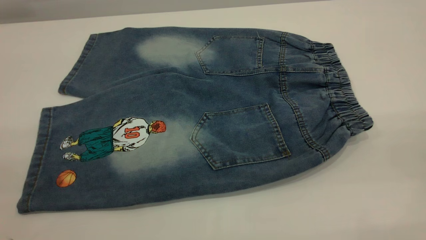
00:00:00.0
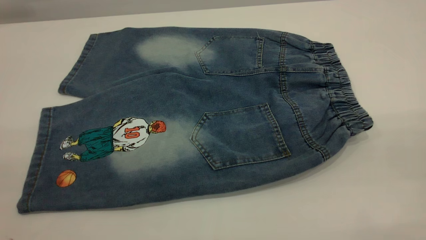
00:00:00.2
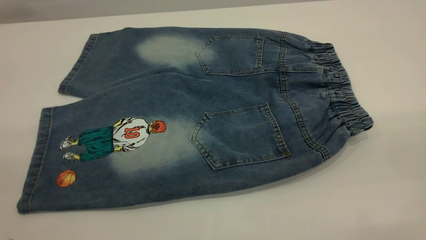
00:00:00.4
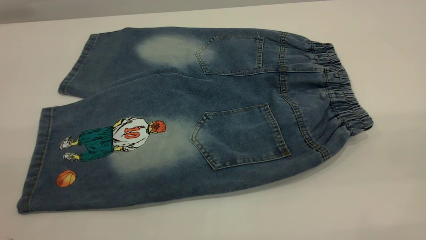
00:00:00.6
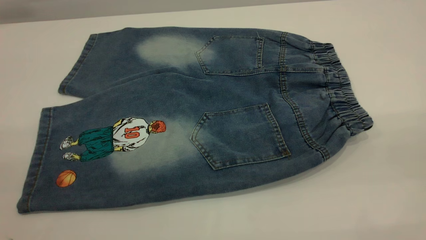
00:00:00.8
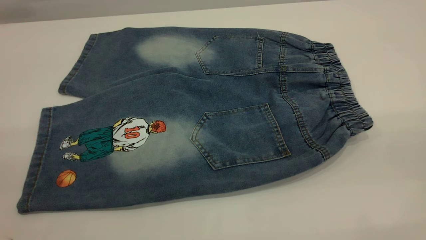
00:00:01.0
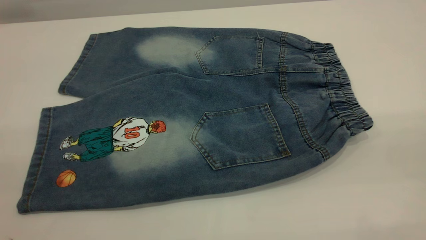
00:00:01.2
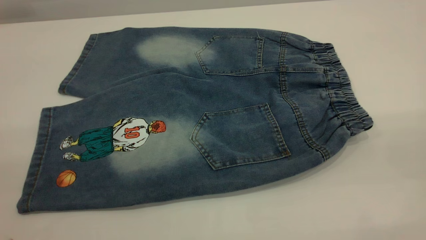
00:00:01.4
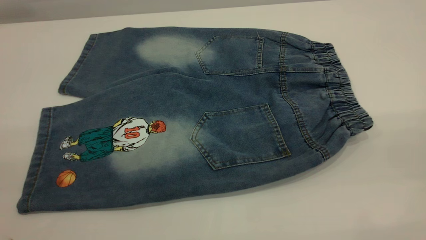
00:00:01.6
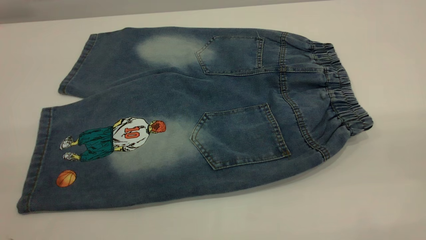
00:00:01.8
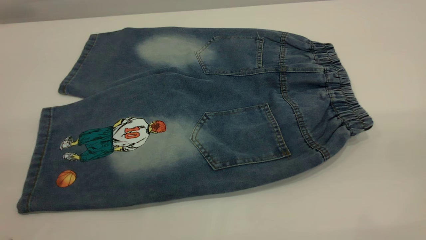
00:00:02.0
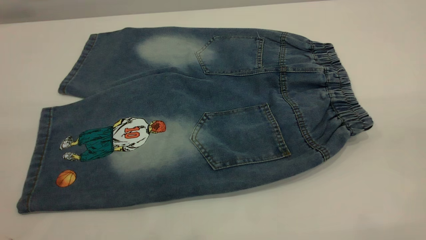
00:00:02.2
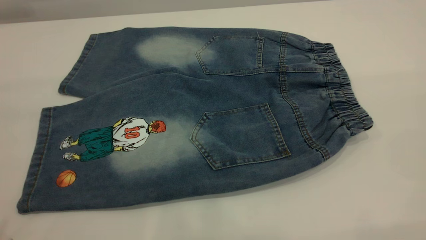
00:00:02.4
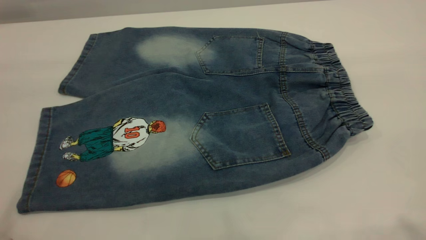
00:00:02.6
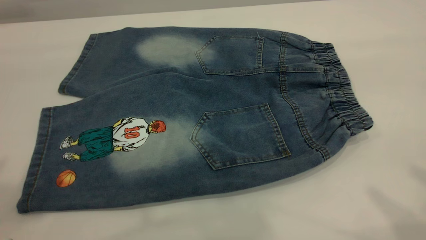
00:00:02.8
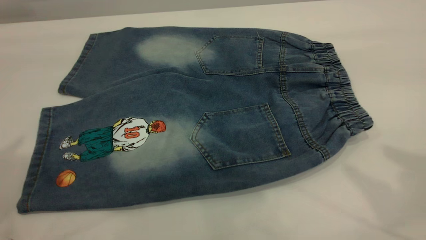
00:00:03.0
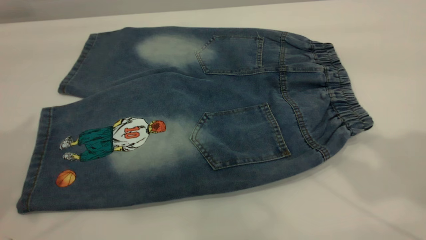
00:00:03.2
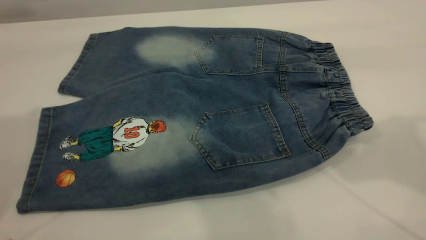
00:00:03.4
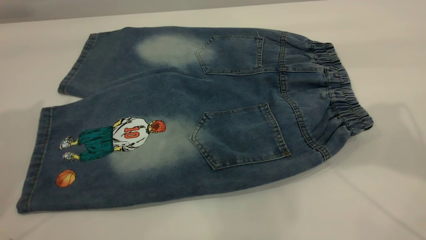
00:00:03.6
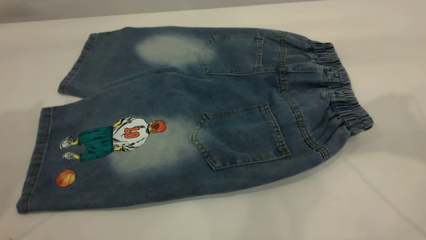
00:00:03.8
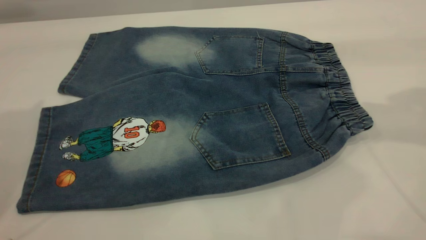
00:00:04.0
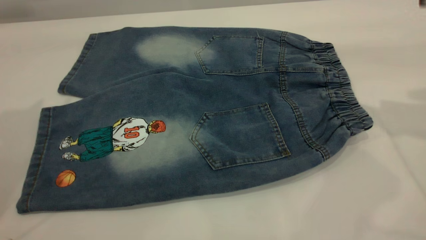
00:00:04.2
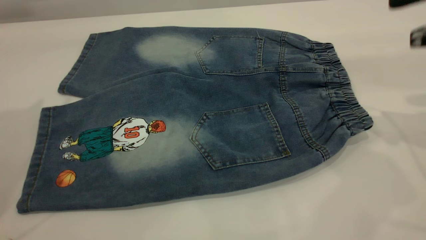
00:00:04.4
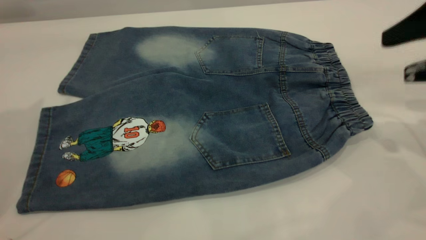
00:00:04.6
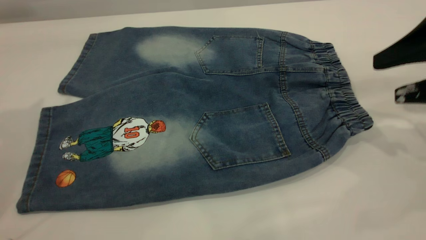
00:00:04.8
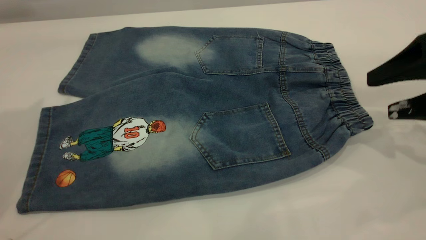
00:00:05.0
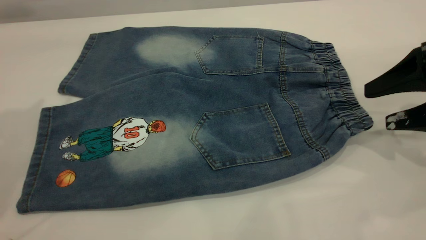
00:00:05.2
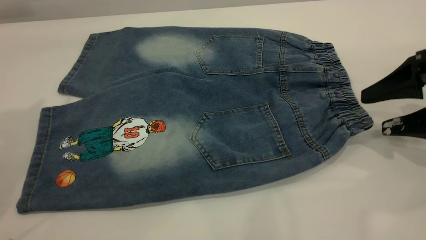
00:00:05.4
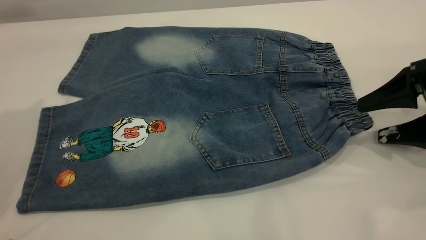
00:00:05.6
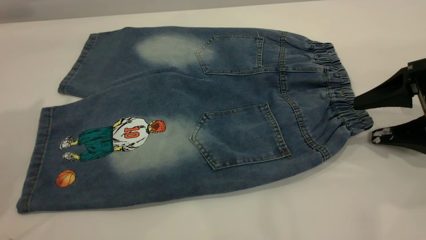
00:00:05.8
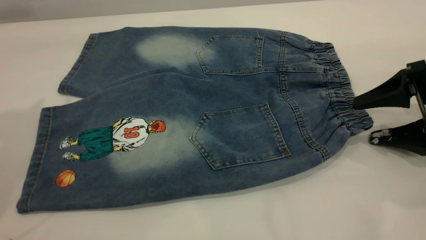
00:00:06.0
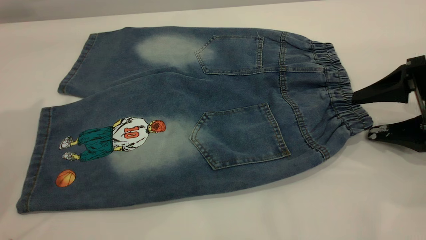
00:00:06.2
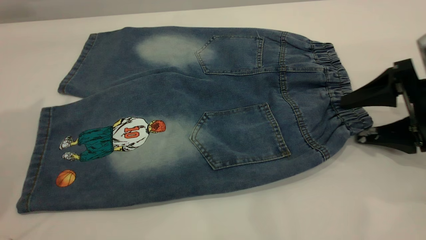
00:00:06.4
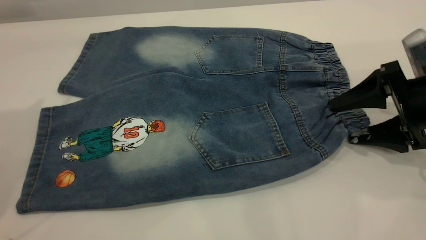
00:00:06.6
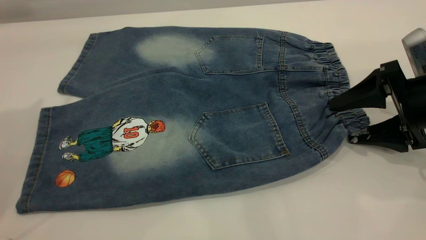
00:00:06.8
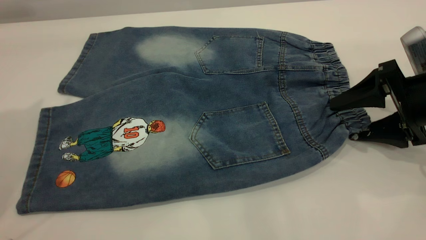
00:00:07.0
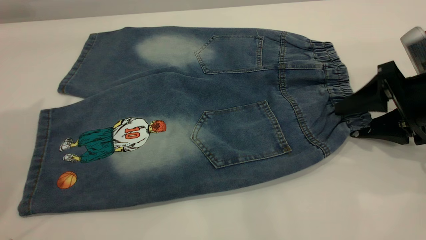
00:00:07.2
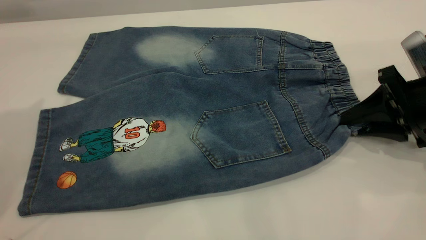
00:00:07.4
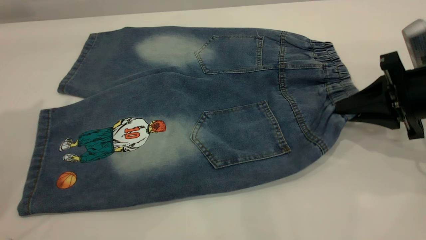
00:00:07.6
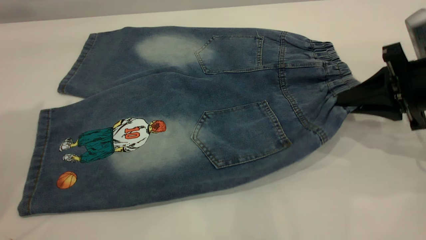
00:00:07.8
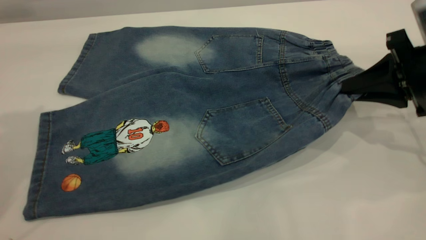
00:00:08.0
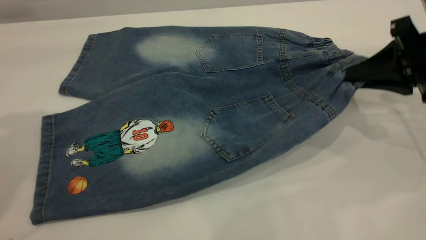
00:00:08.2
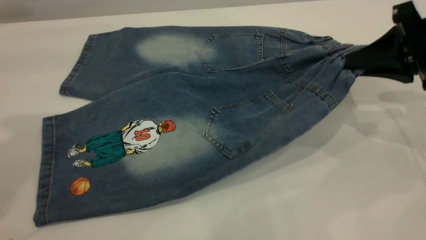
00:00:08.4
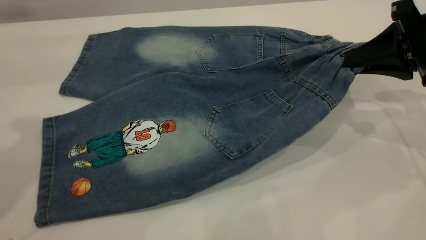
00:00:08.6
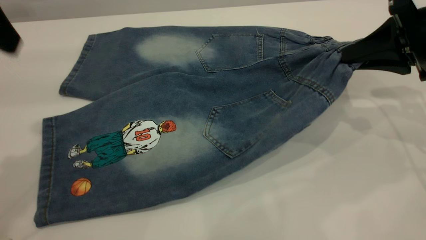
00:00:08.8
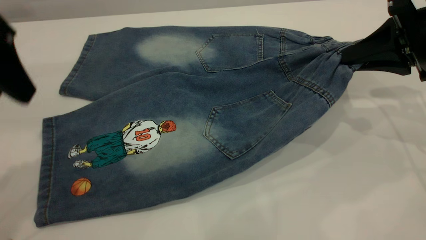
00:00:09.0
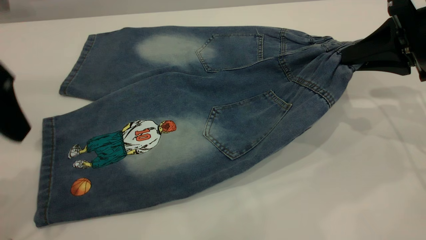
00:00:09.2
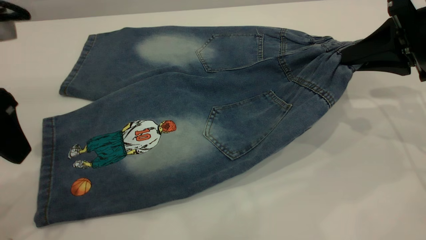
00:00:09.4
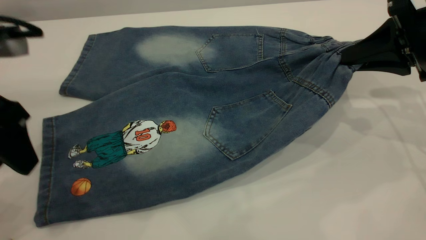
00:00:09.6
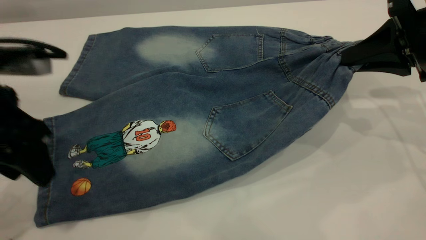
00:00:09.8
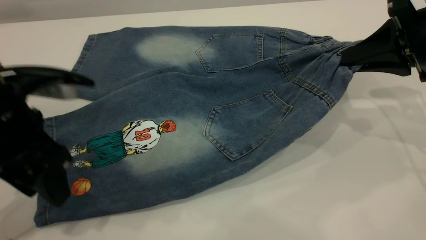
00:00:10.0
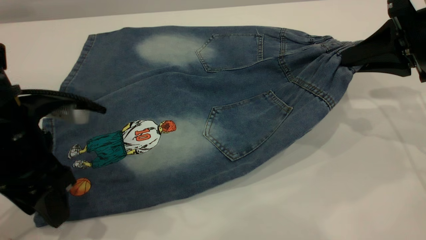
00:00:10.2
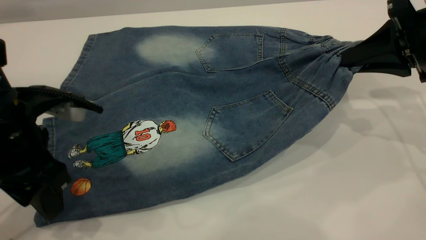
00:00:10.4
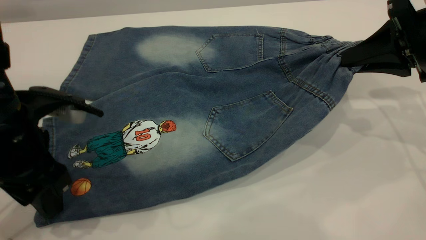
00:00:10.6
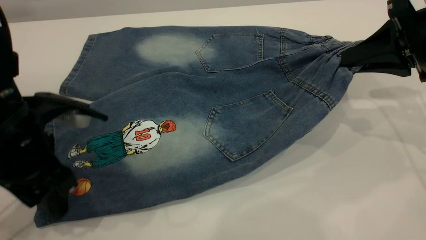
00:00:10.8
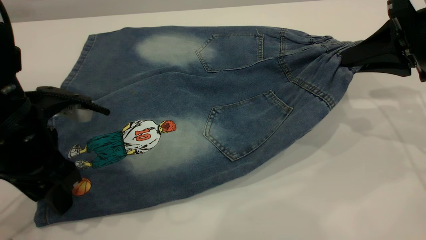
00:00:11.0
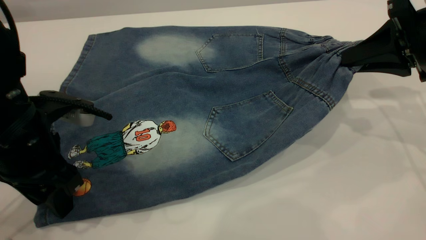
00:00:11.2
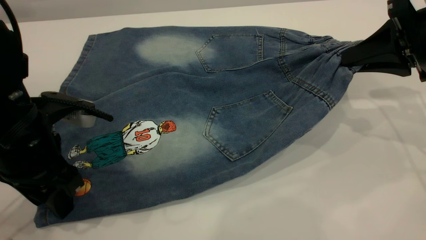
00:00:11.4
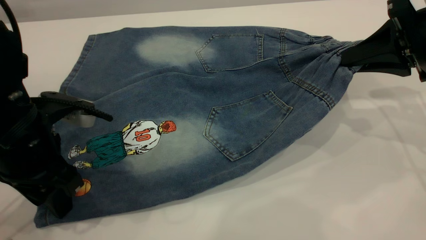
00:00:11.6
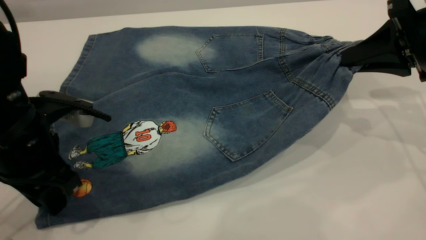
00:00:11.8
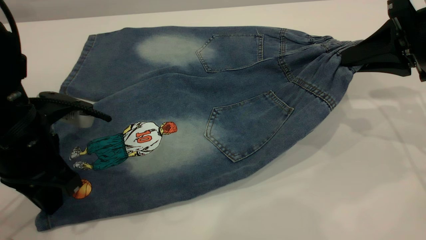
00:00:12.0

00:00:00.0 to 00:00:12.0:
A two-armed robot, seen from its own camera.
00:00:00.0 to 00:00:01.6: Both grippers stay about where they are.
00:00:03.0 to 00:00:04.4: The right gripper goes approximately 20 cm downward, forward and to the right.
00:00:04.4 to 00:00:06.0: The right gripper shifts about 15 cm downward.
00:00:06.0 to 00:00:07.6: The right gripper closes its fingers.
00:00:07.6 to 00:00:09.0: The right gripper shifts about 5 cm upward. The left gripper goes about 10 cm downward.
00:00:09.0 to 00:00:10.4: The left gripper is displaced downward by roughly 10 cm.
00:00:10.4 to 00:00:12.0: The left gripper closes.

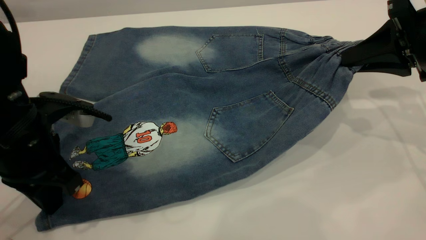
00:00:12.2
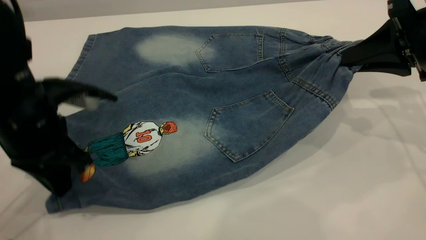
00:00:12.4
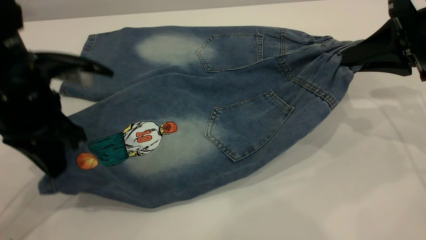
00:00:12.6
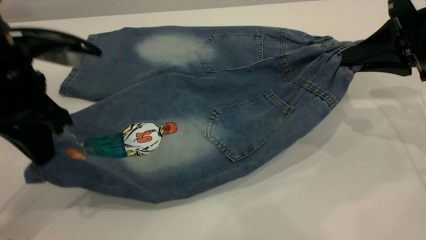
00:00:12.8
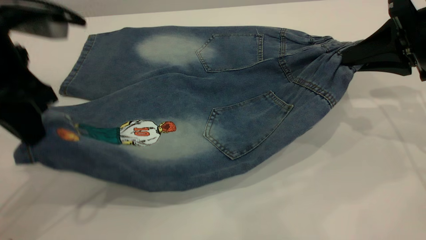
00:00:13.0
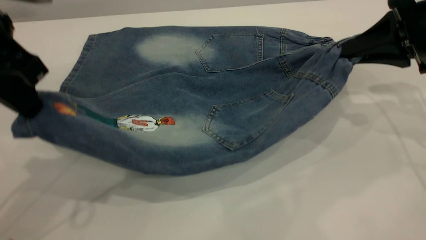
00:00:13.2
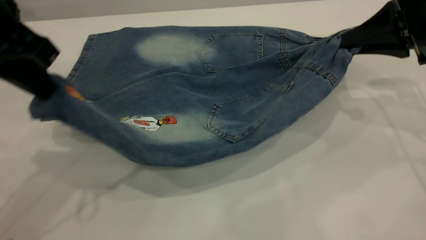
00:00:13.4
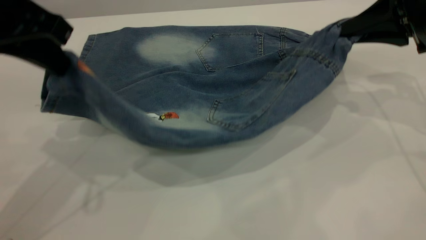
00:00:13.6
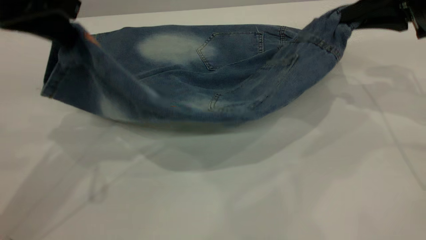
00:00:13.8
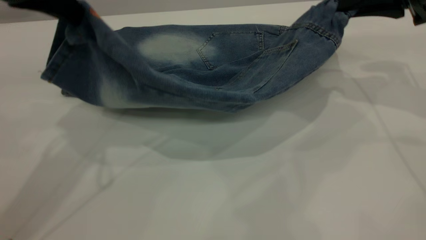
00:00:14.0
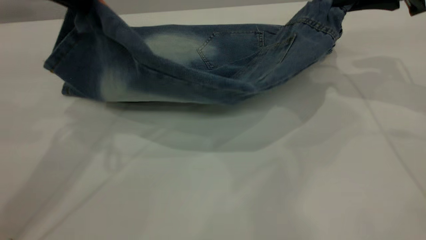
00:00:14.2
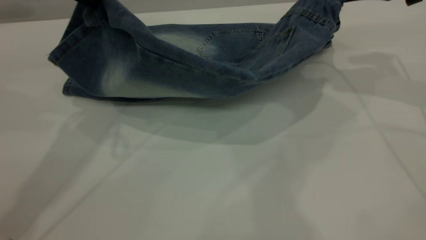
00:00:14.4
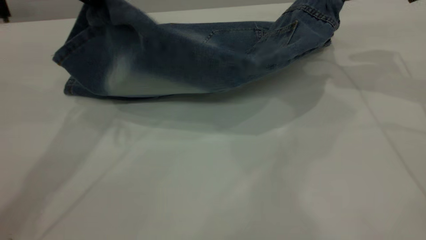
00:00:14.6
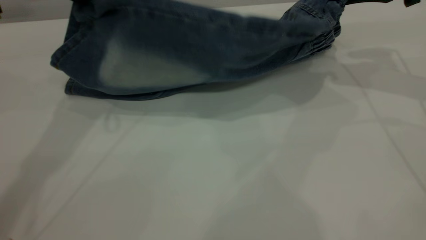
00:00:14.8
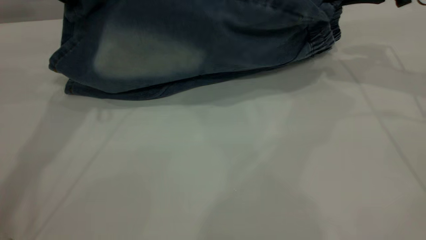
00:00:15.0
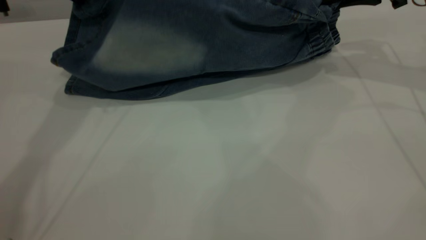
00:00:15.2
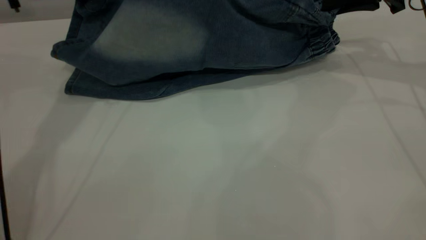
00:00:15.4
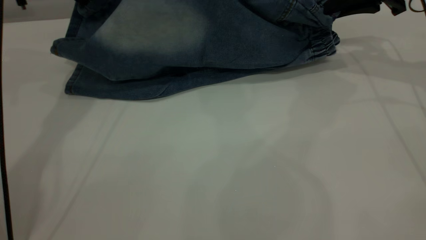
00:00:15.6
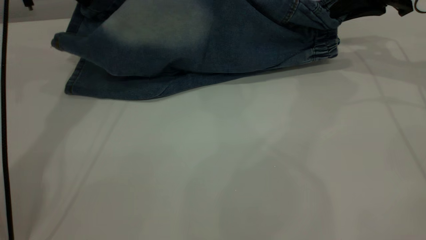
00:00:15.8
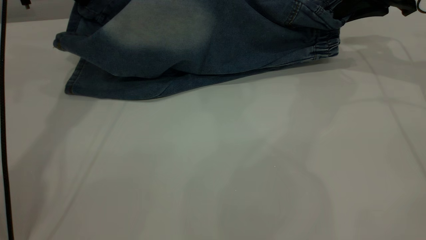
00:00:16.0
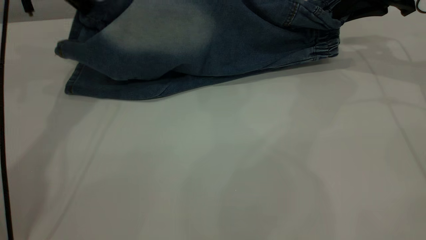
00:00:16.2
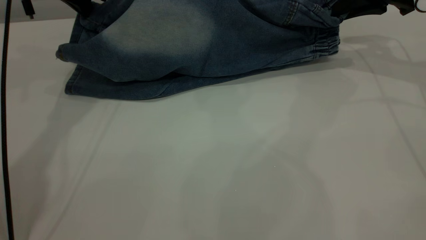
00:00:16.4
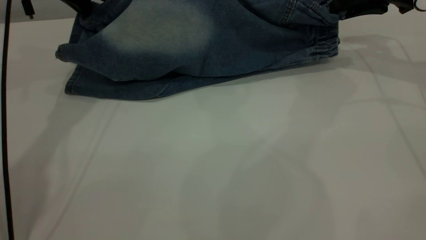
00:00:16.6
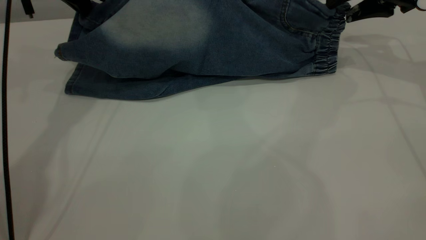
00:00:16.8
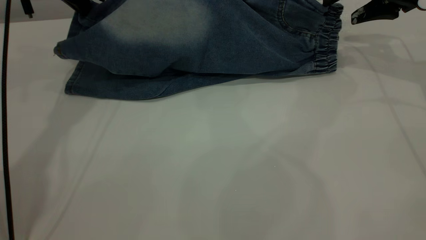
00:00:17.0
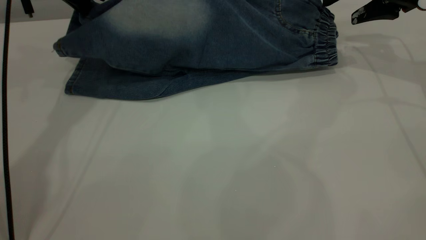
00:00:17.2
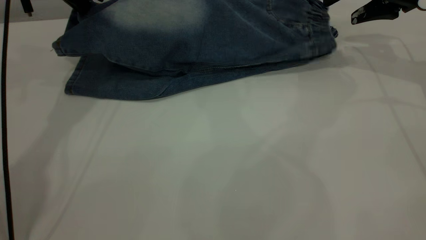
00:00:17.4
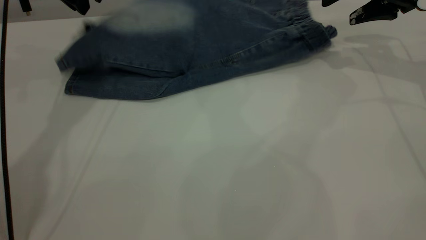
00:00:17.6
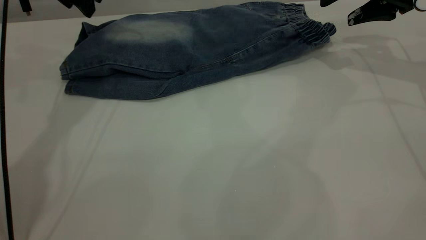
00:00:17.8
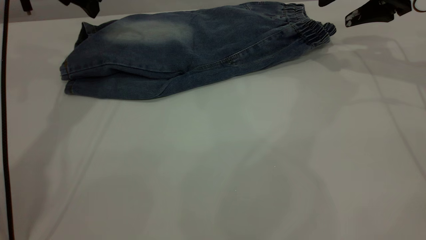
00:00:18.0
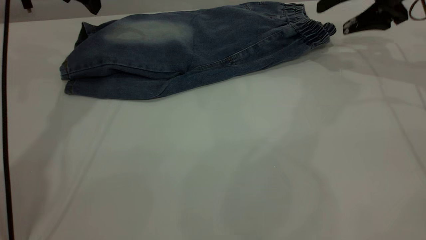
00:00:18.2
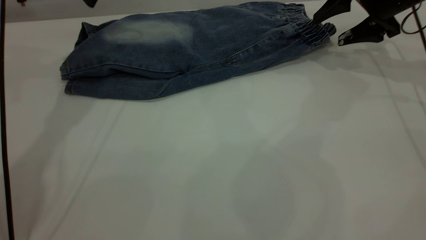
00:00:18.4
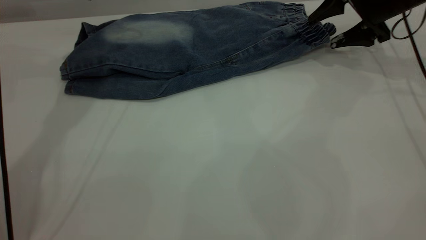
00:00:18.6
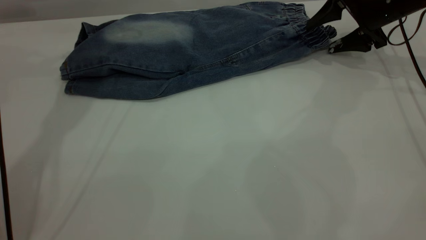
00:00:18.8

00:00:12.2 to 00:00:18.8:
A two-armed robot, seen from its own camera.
Step, 00:00:12.2 to 00:00:17.8: Fold the bottom of the pants upward.
00:00:12.2 to 00:00:13.8: The right gripper heads forward, covering some 5 cm; the left gripper moves upward, roughly 15 cm.
00:00:13.8 to 00:00:15.4: The left gripper shifts roughly 15 cm forward; the right gripper moves forward, approximately 10 cm.
00:00:15.4 to 00:00:17.2: The right gripper opens its fingers.
00:00:17.2 to 00:00:18.8: The left gripper opens; the right gripper goes about 5 cm downward.
